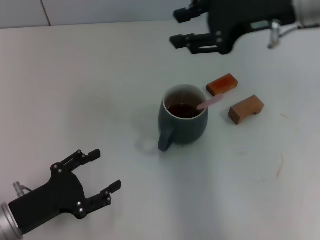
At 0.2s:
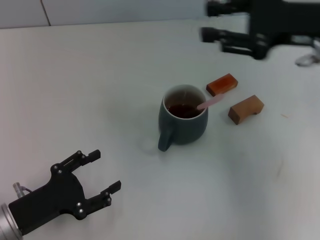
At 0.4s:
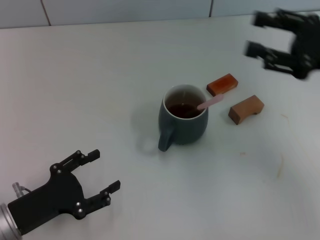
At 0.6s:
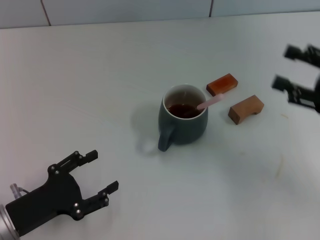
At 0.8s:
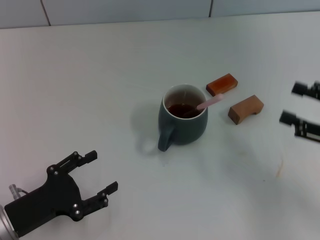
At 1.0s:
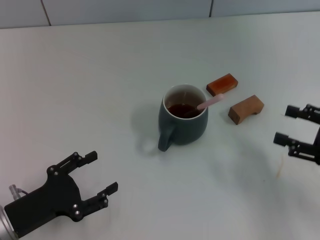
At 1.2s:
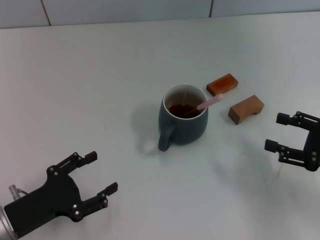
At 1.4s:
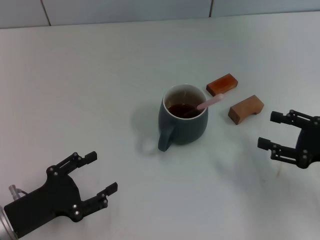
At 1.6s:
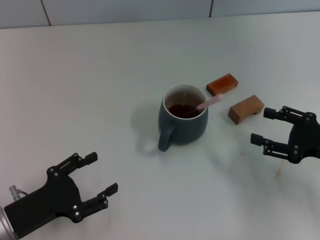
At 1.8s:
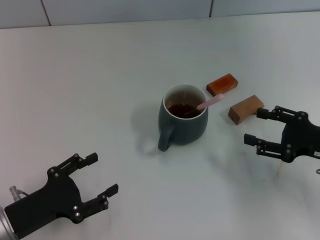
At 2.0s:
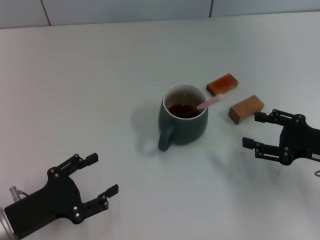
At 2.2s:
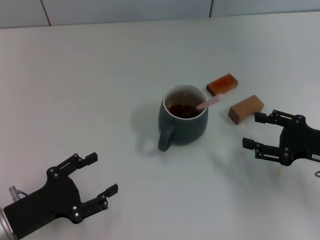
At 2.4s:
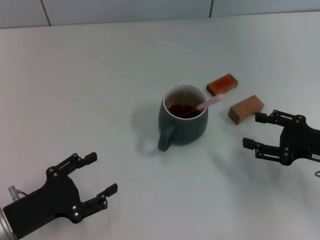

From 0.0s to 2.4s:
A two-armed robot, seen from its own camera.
Task of the whole recording: Move the grey cup to the center, lift the pink spoon, stir it three times in the cup, and put the spoon into the cup.
From 0.0s to 1.2s: The right gripper moves downward, to the right and backward, approximately 30 cm, and opens.
From 1.2s to 2.4s: The grippers move only a little.

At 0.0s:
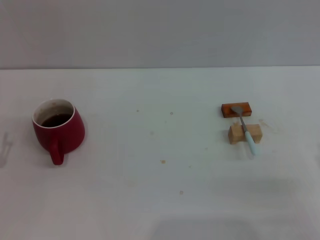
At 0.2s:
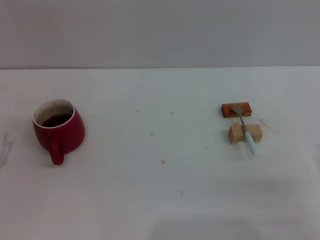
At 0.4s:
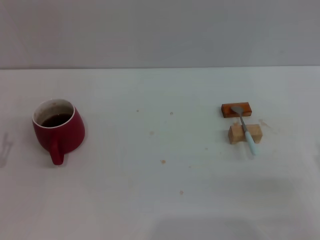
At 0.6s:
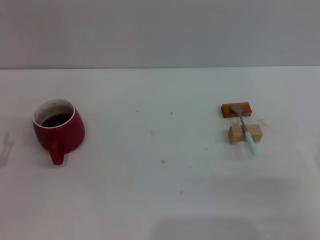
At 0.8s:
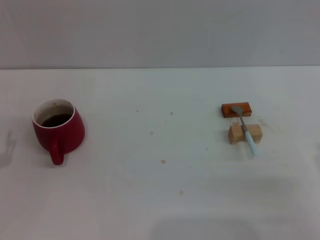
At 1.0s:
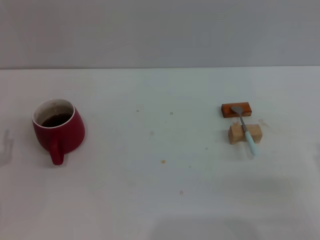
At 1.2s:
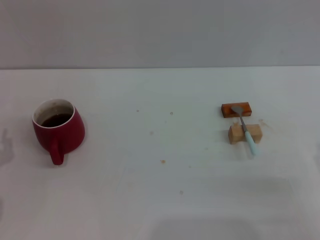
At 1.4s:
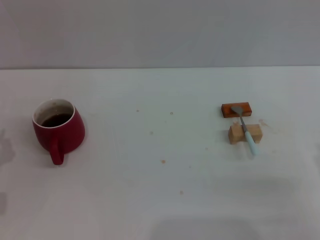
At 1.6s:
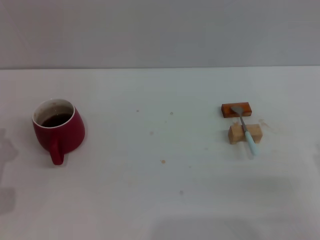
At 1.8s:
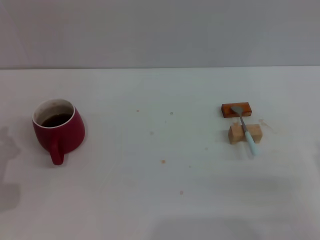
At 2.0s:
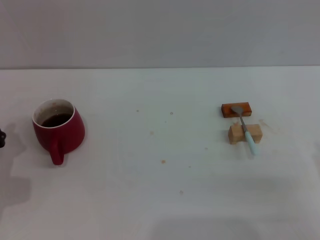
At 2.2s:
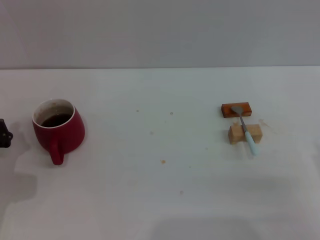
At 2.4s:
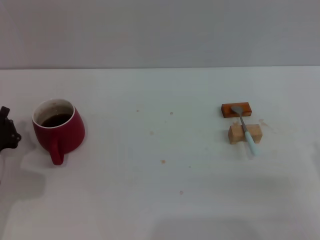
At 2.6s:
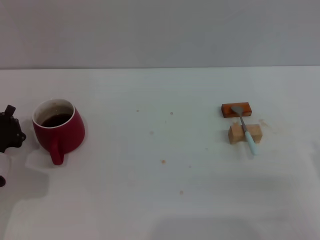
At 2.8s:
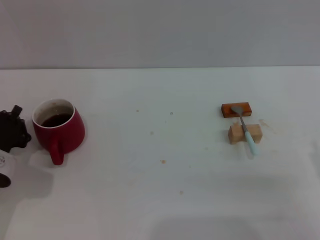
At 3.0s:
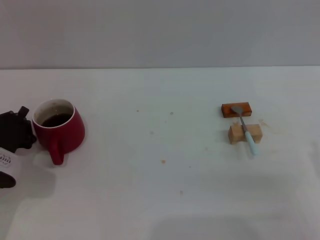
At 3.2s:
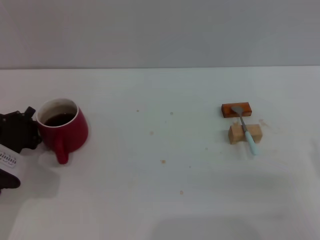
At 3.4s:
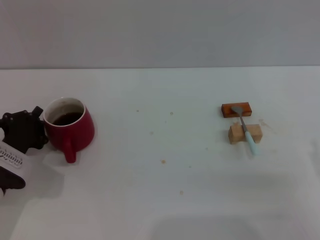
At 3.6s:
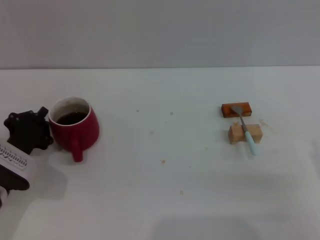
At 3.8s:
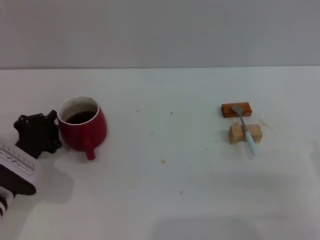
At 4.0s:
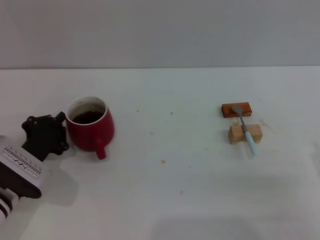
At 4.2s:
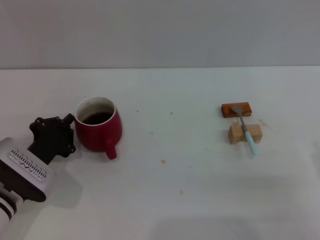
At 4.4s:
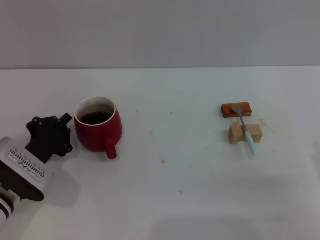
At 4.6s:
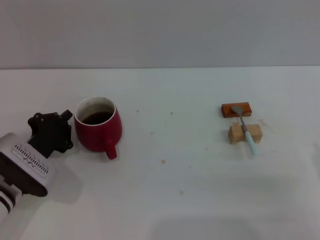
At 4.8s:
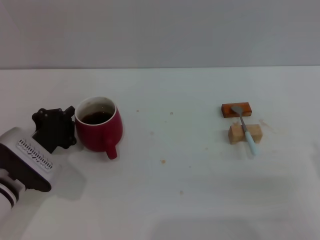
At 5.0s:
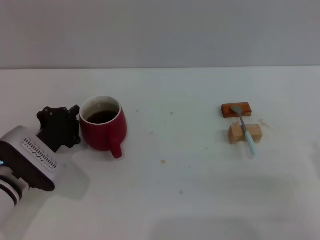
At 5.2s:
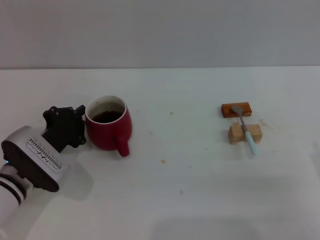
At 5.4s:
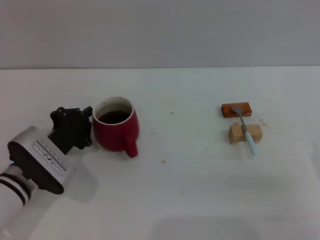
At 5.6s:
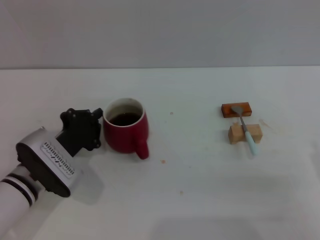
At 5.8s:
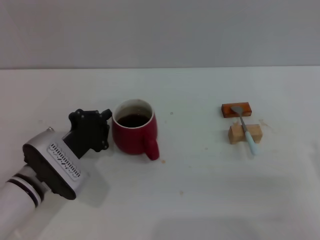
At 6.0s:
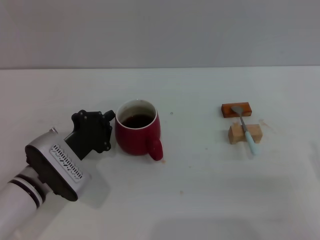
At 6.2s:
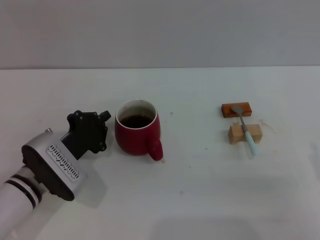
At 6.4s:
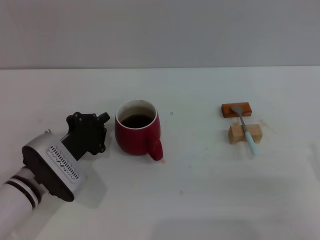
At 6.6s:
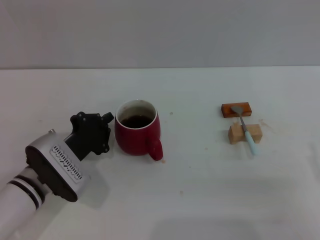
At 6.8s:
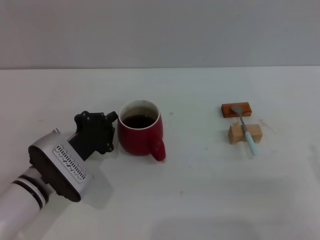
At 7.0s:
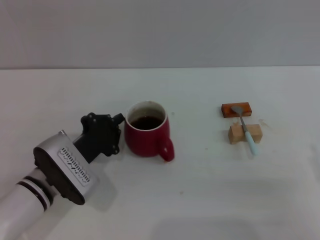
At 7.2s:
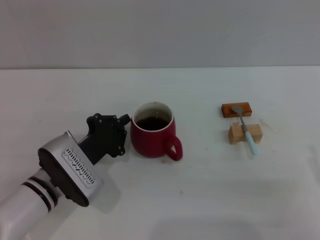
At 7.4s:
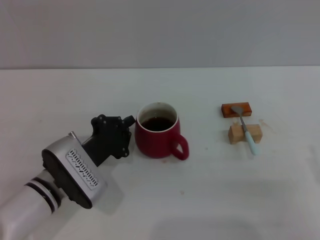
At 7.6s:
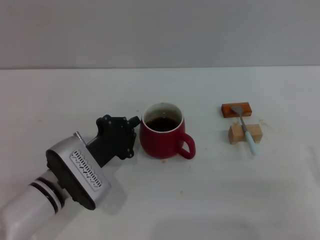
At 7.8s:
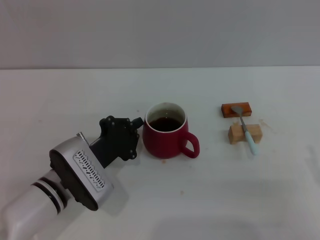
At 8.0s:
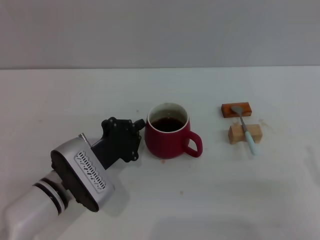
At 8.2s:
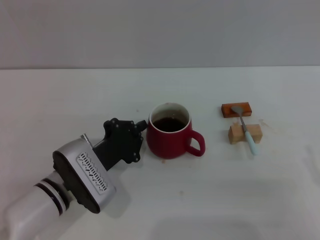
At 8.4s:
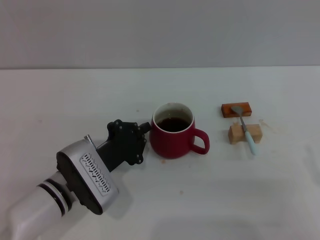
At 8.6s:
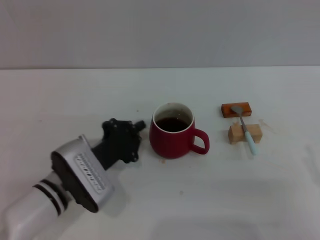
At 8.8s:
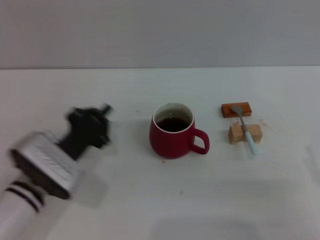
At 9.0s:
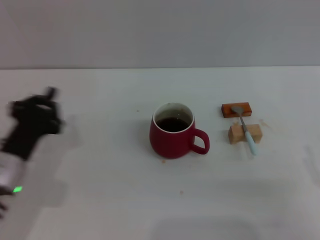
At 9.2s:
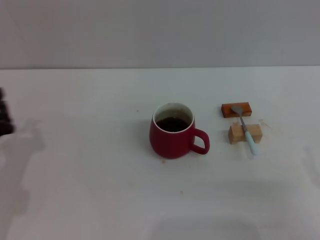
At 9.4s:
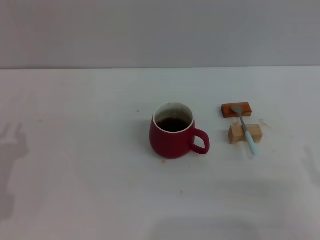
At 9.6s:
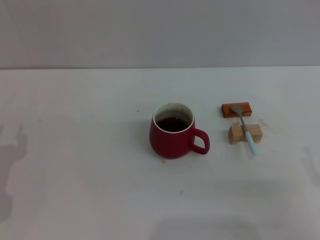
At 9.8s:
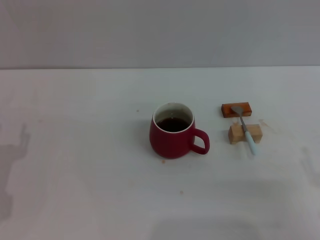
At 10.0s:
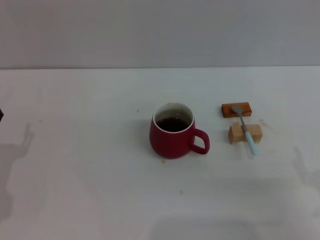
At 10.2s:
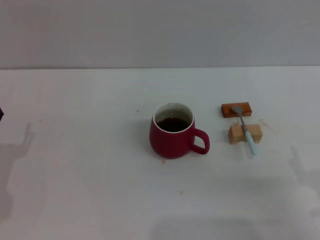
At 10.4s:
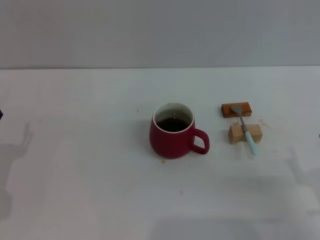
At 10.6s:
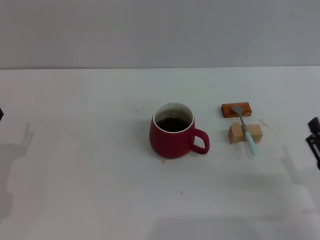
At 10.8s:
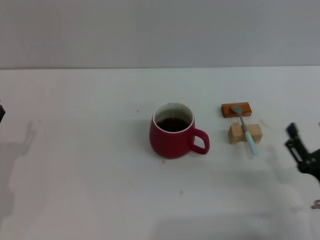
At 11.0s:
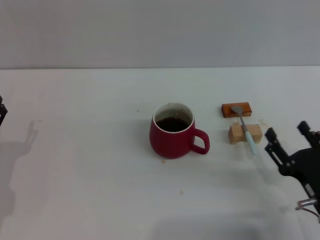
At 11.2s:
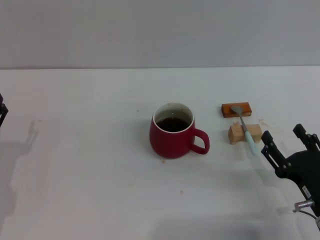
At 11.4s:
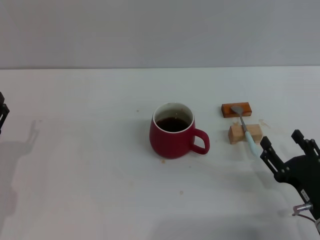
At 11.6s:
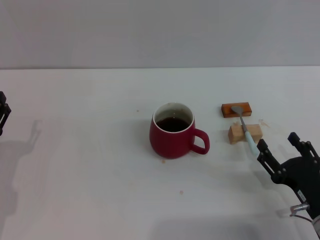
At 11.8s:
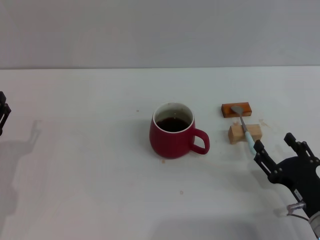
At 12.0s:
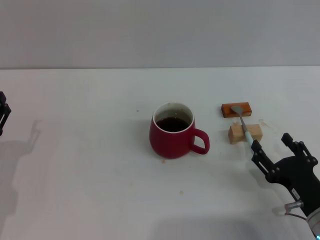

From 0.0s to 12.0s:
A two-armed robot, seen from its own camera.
Task of the whole recording: Move the red cup to the center, lift the blue spoon, stir it three times in the cup, and put the spoon into the cup.
Step, from 0.0s to 8.8s: Move the cup with coffee to the center of view with the left gripper.
From 1.6s to 3.0s: The left gripper shifts by roughly 5 cm.
From 3.0s to 4.4s: The grippers move only a little.
From 4.4s to 6.0s: The left gripper shifts by some 5 cm.
From 6.0s to 7.6s: The grippers move only a little.
From 7.6s to 9.0s: The left gripper shifts some 5 cm to the left.
From 9.0s to 10.4s: The left gripper heads to the left, covering roughly 5 cm, and opens.
From 10.4s to 12.0s: The right gripper ends up about 5 cm from where it was.

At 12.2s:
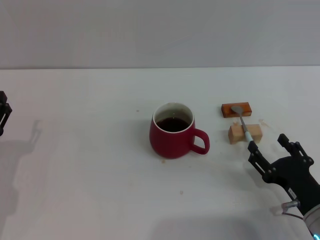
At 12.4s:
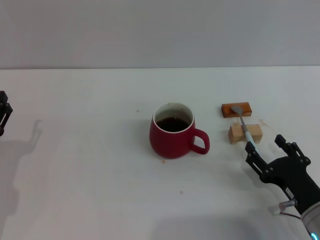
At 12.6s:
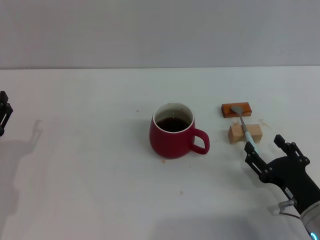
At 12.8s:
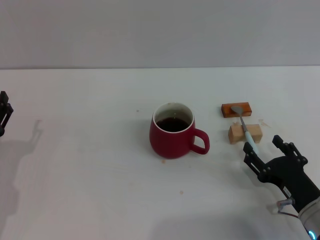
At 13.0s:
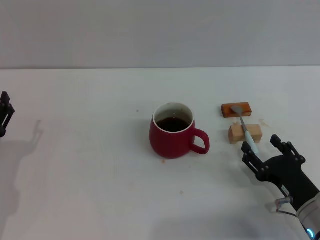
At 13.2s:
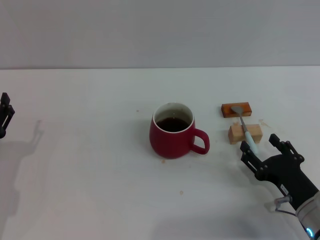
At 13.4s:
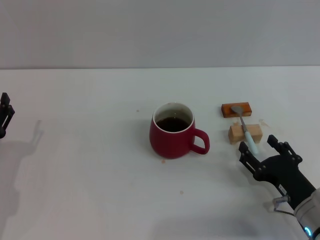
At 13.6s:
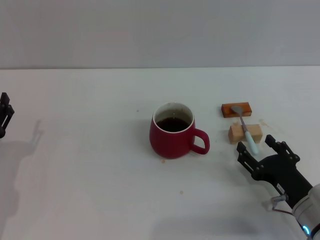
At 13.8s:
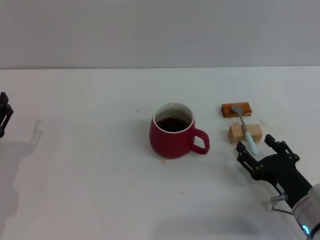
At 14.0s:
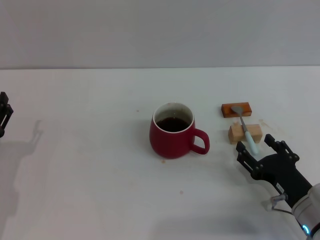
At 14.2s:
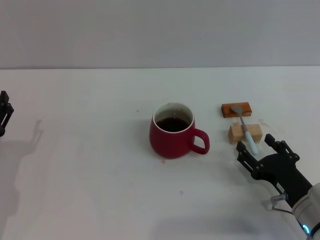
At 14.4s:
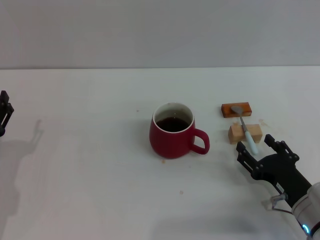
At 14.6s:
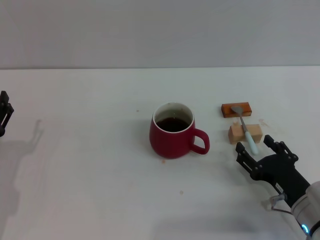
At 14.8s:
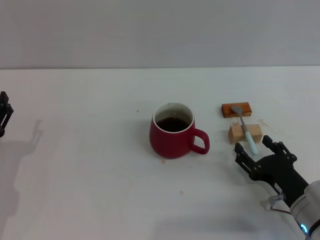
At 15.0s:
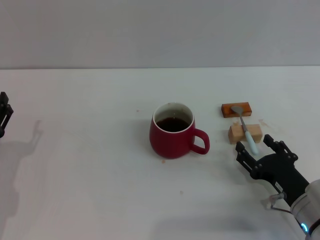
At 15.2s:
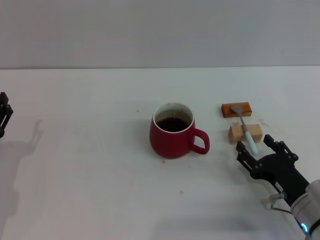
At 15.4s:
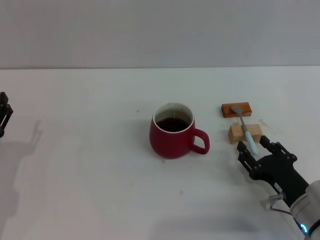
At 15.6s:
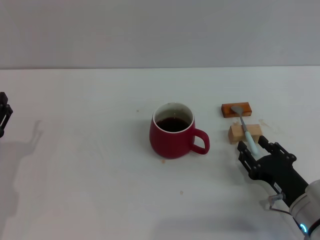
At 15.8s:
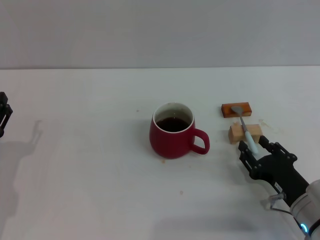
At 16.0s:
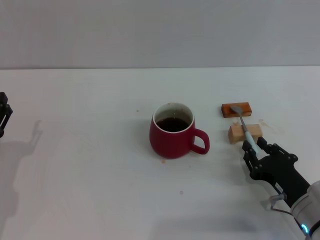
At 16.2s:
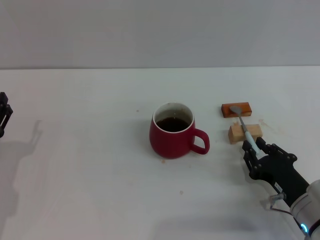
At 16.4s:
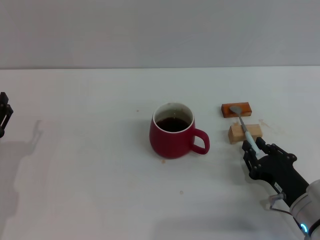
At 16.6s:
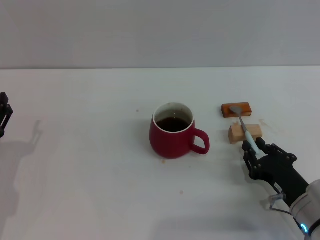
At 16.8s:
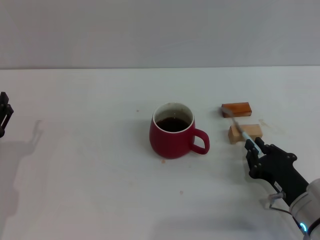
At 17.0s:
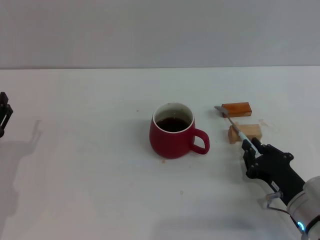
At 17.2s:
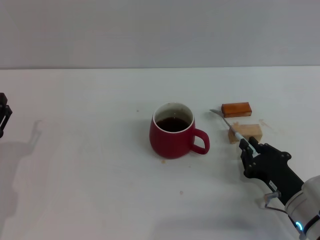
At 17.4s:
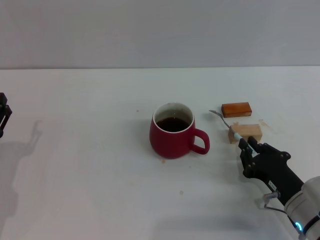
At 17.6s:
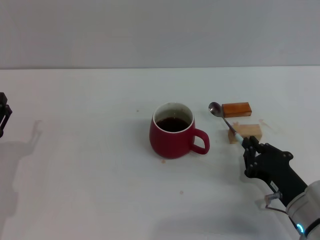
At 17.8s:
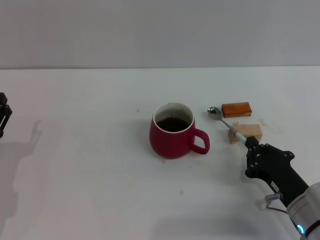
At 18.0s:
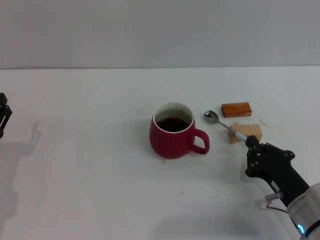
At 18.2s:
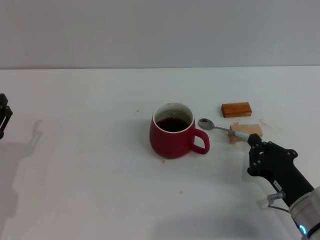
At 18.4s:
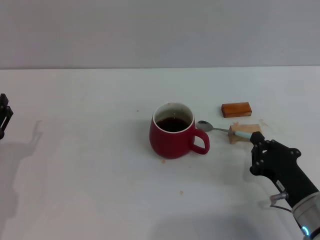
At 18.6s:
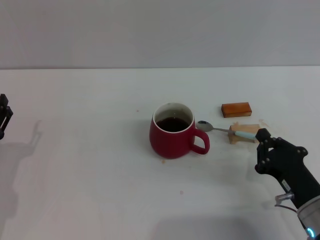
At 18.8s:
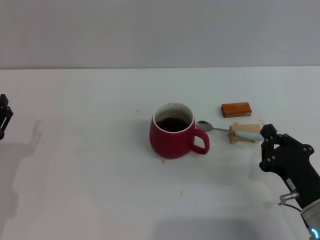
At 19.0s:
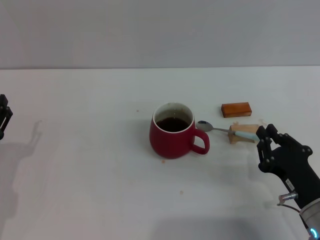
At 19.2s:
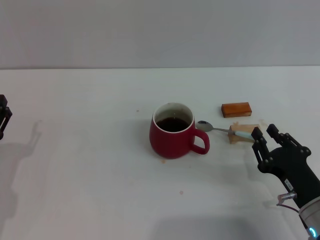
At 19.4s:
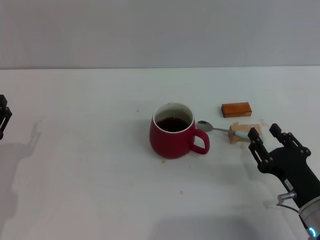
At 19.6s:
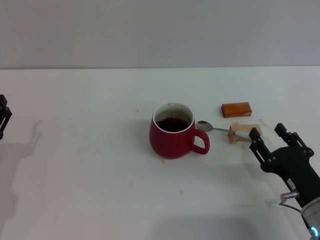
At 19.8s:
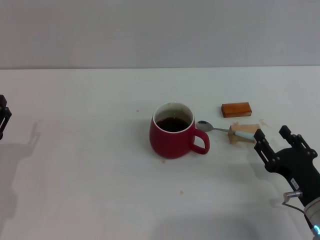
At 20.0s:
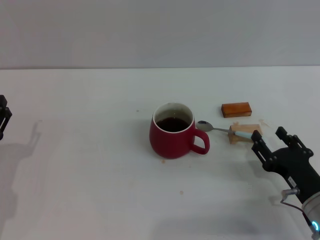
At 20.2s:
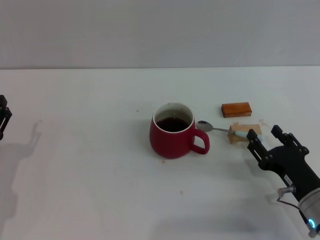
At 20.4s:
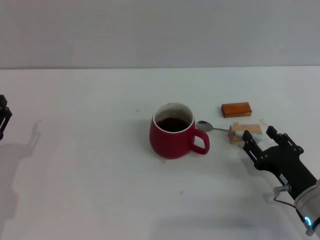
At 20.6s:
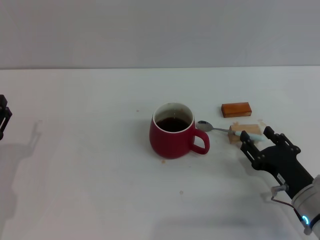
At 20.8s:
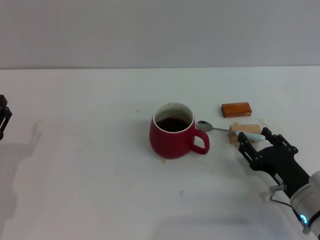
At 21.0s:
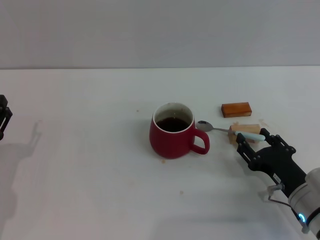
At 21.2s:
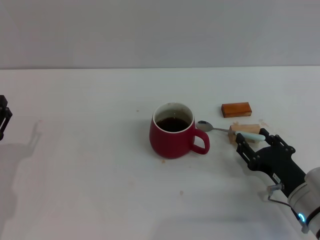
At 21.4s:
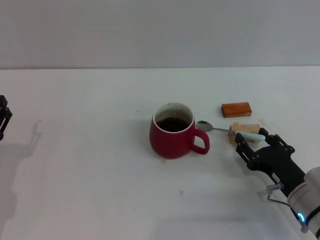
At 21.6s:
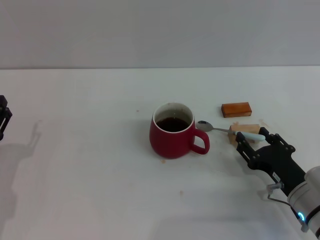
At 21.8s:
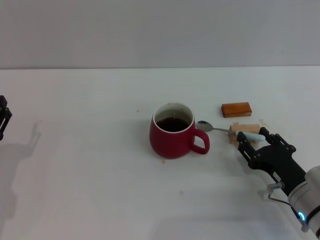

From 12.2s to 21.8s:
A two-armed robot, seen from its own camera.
Task of the whole recording: Move the red cup to the center, lift the blue spoon, stir it three times in the cup, and put the spoon into the cup.
From 12.2s to 13.8s: The grippers move only a little.
From 13.8s to 15.4s: Both grippers stay put.
From 15.4s to 17.0s: The right gripper closes.
From 17.0s to 18.6s: There are only small adjustments of the grippers.
From 18.6s to 20.2s: The right gripper opens.
From 20.2s to 21.8s: The grippers make only small movements.
